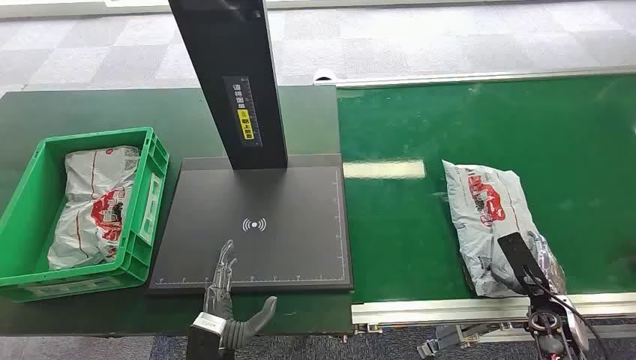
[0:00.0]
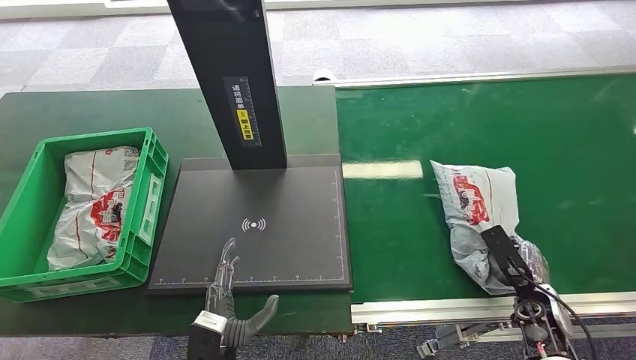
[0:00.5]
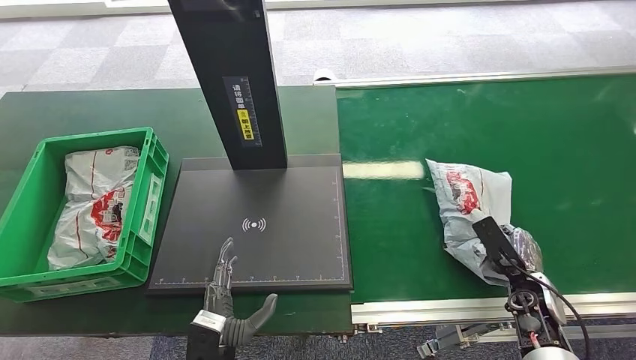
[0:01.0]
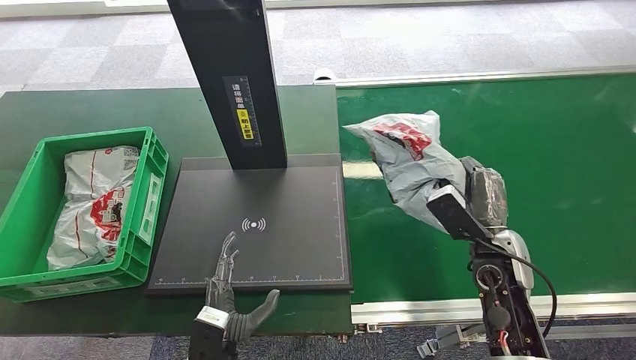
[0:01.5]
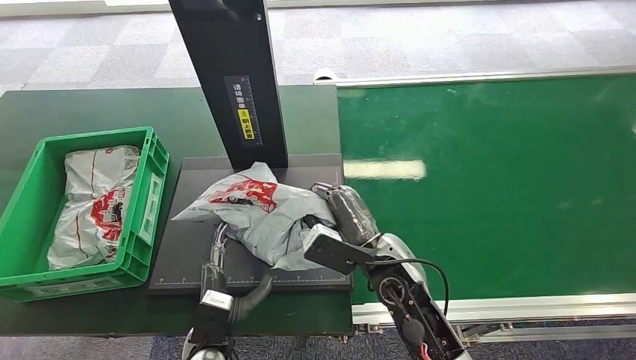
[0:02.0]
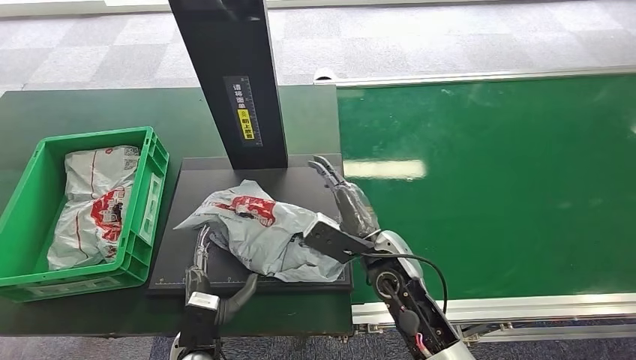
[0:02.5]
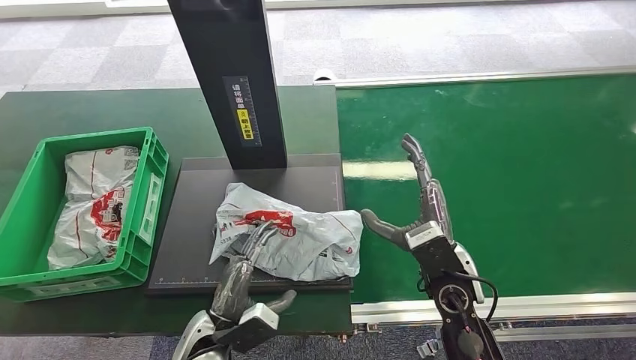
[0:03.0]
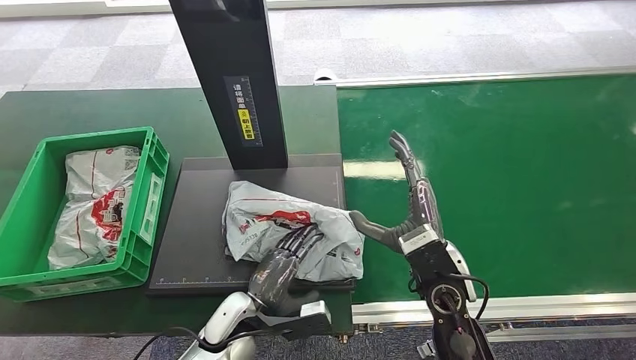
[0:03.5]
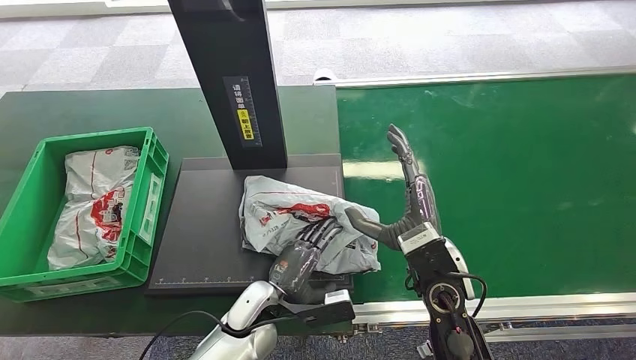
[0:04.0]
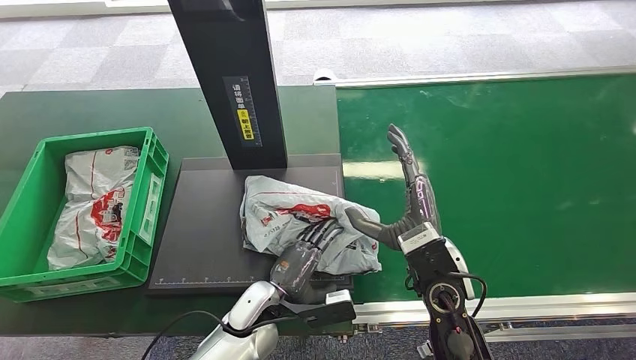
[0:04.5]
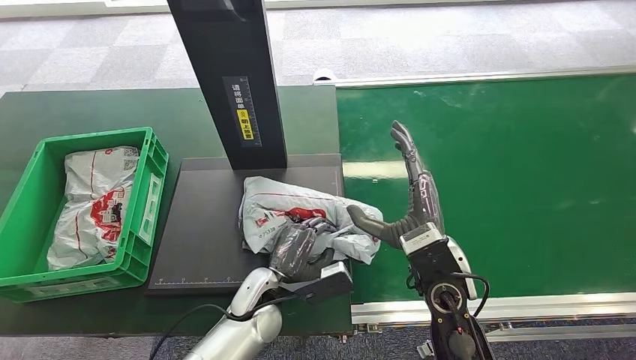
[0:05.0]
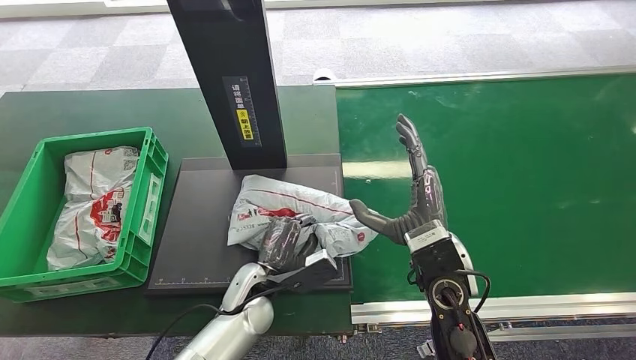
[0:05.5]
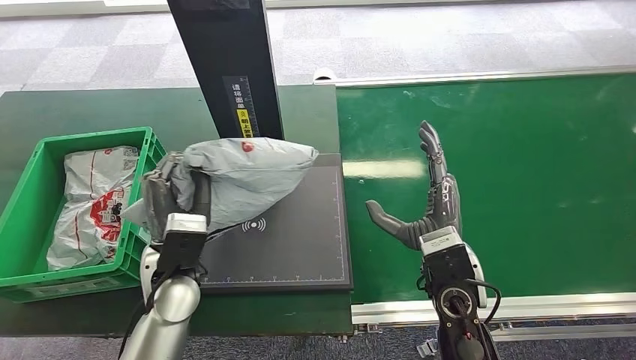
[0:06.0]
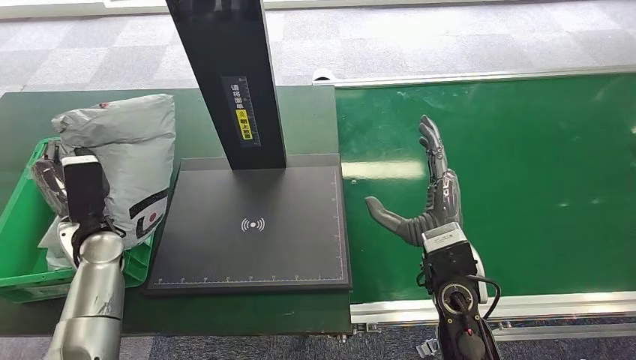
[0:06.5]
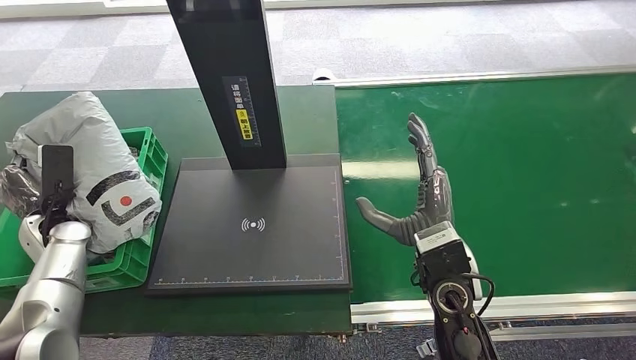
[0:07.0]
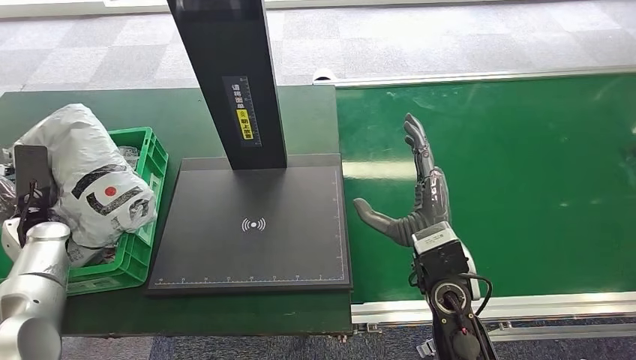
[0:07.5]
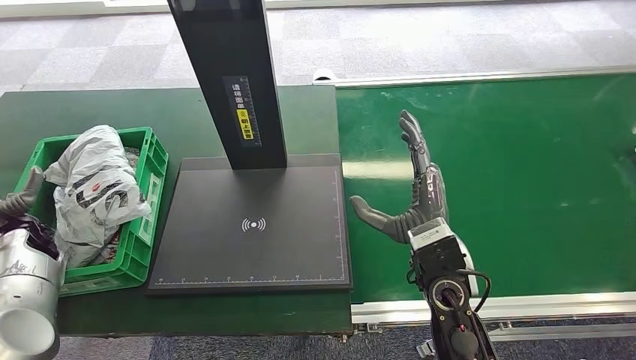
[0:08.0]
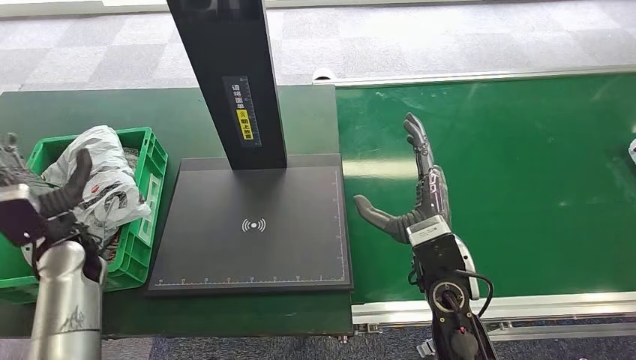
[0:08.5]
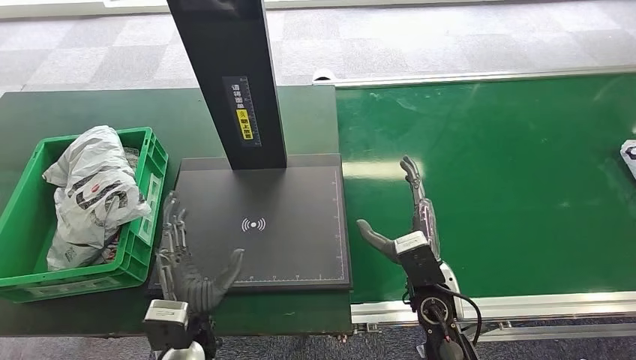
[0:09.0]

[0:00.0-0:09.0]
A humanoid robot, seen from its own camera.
Step, 0:00.0 to 0:01.5: Pick up the package from the conveyor belt.
Step, 0:02.0 to 0:03.0: Place the package onto the inbound machine.
Step, 0:04.0 to 0:06.5: Pick up the package from the inbound machine.
Step, 0:07.0 to 0:09.0: Place the package into the parcel locker.
0:02.0 to 0:04.5: The left hand moves forward and to the right, approximately 10 cm; the right hand moves to the right, approximately 5 cm.
0:07.0 to 0:09.0: The left hand is displaced to the right and backward by approximately 35 cm. The right hand shifts about 10 cm downward.

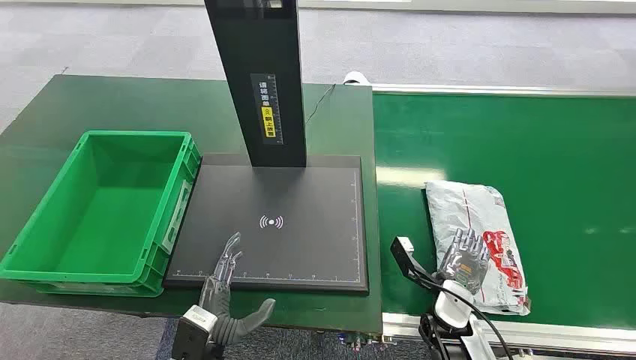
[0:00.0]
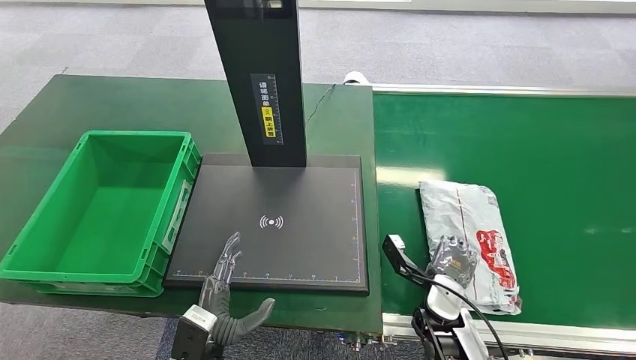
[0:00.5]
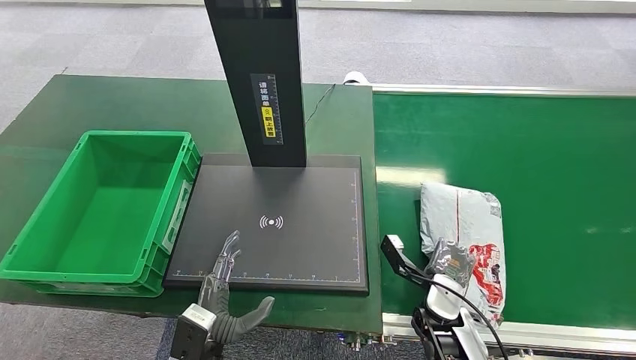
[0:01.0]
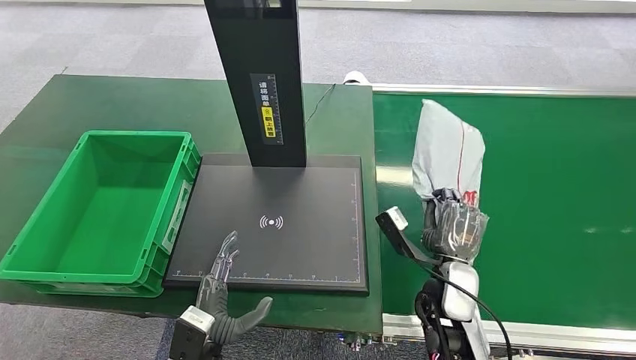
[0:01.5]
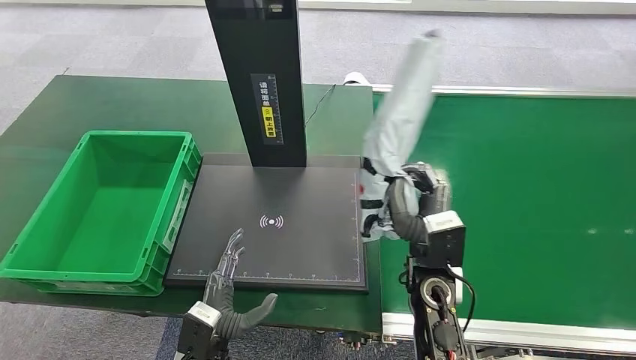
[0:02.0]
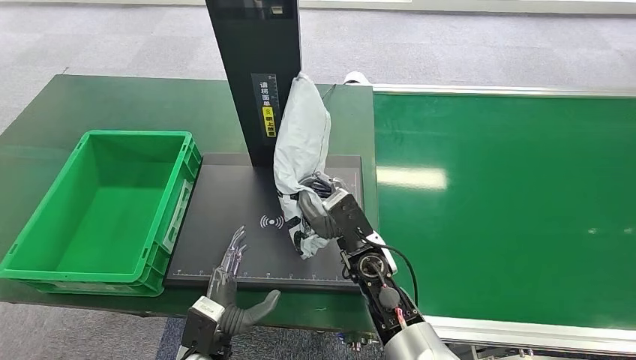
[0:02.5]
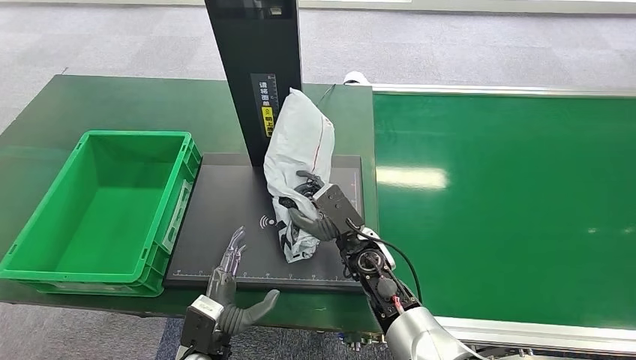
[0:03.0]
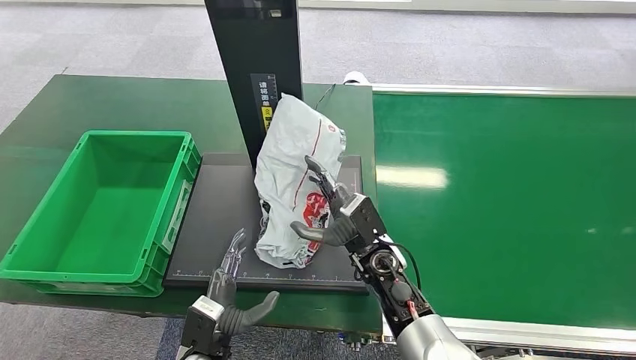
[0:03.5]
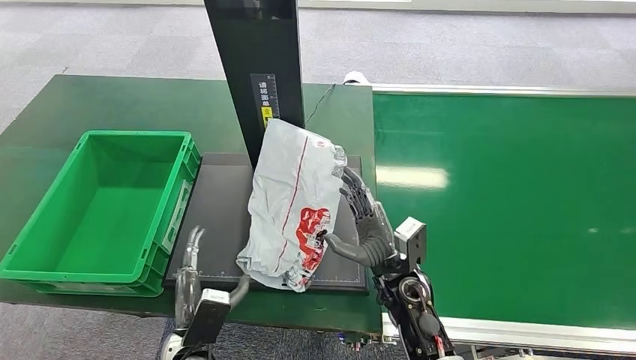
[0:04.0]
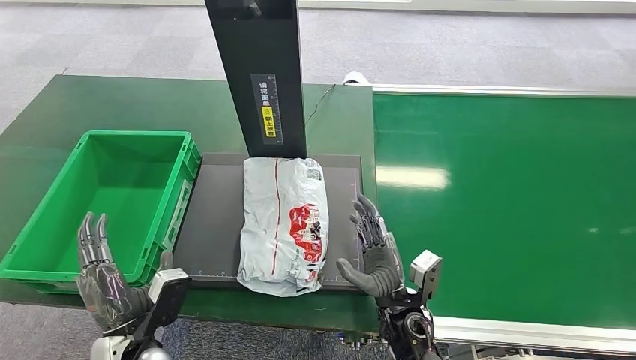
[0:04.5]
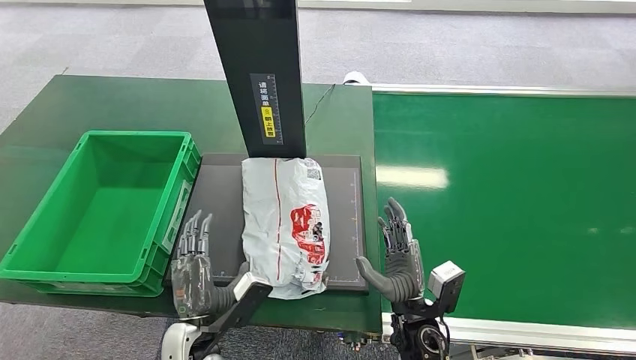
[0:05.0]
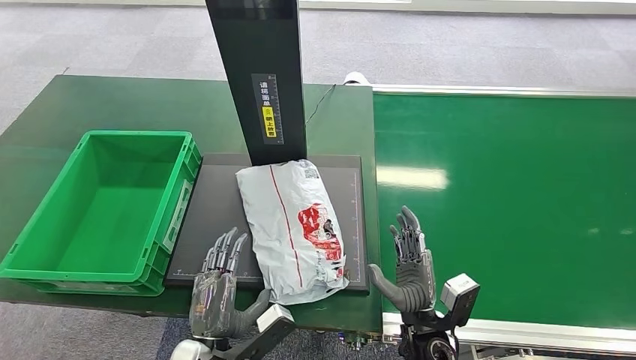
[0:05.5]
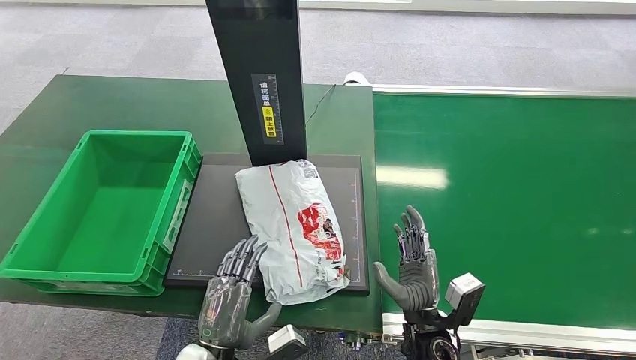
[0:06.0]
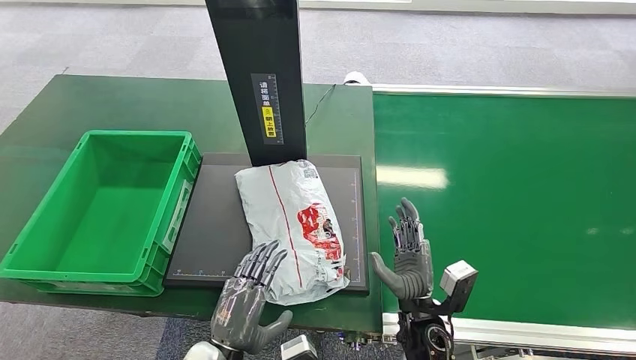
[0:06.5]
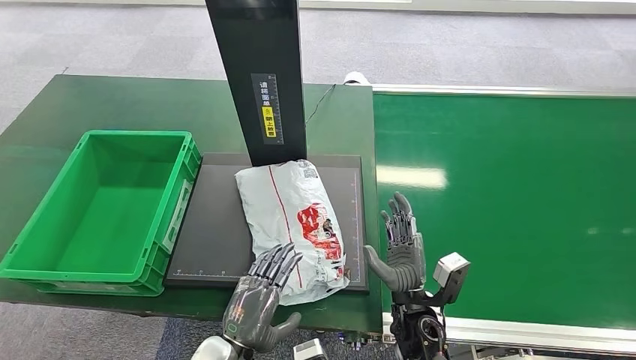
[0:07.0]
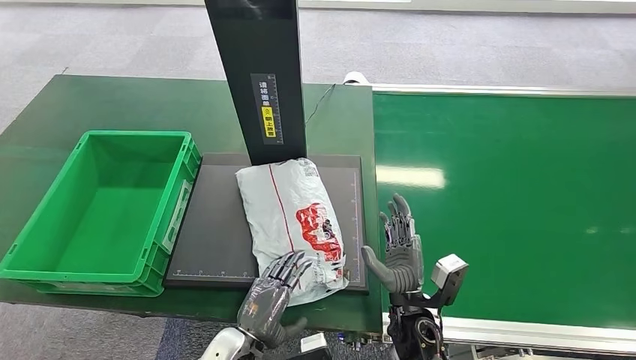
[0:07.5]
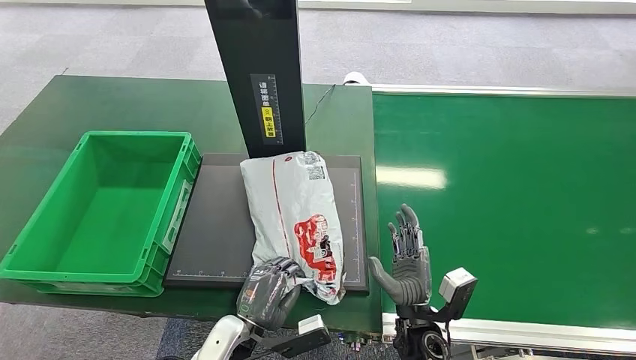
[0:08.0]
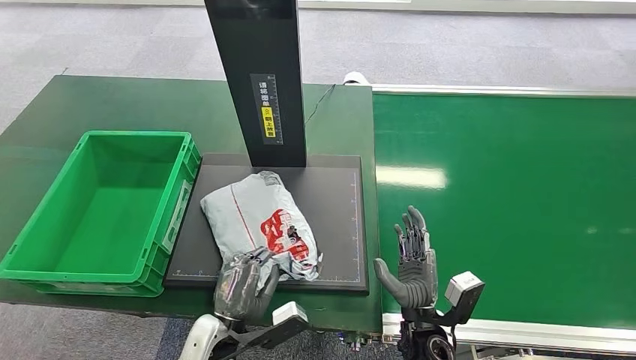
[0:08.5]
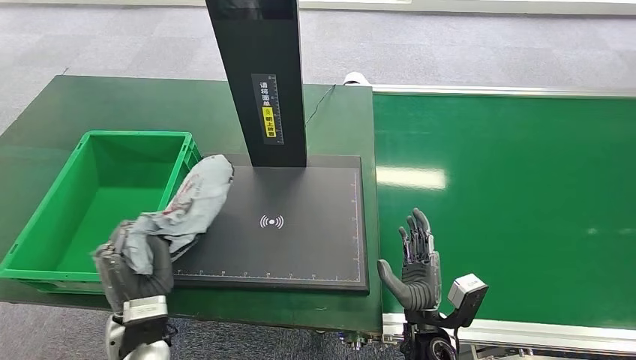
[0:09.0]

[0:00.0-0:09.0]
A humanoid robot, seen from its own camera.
Step, 0:00.0 to 0:01.5: Pick up the package from the conveyor belt.
Step, 0:02.0 to 0:04.0: Place the package onto the inbound machine.
0:02.0 to 0:04.5: The left hand shifts approximately 10 cm to the left and upward; the right hand travels downward and backward by roughly 10 cm.
0:04.5 to 0:07.0: The left hand moves to the right, roughly 10 cm.
0:07.0 to 0:09.0: The left hand is displaced to the left by some 10 cm.

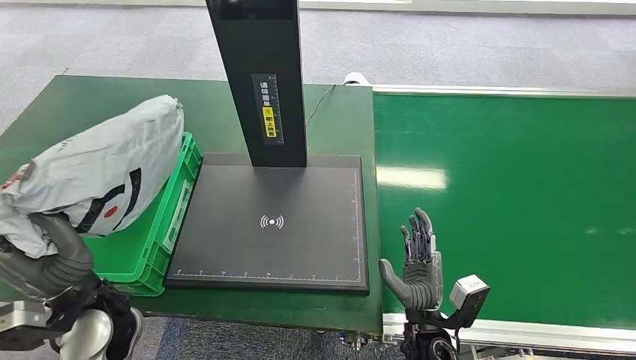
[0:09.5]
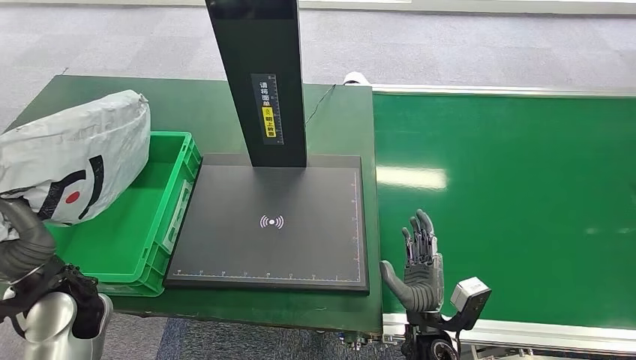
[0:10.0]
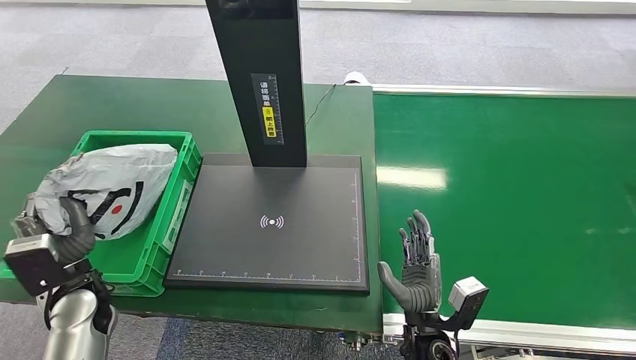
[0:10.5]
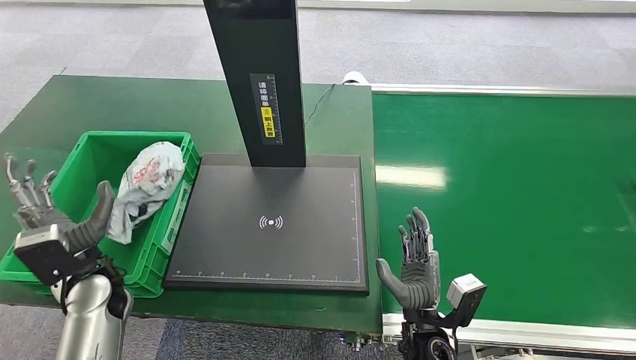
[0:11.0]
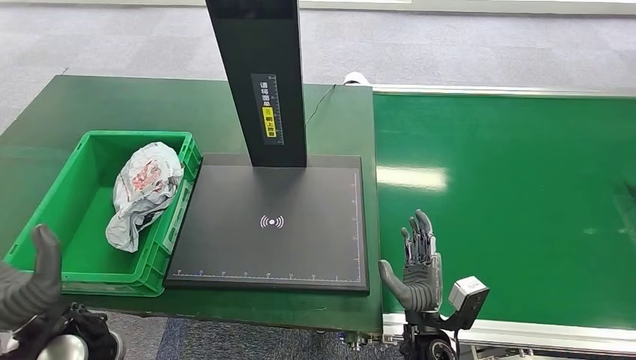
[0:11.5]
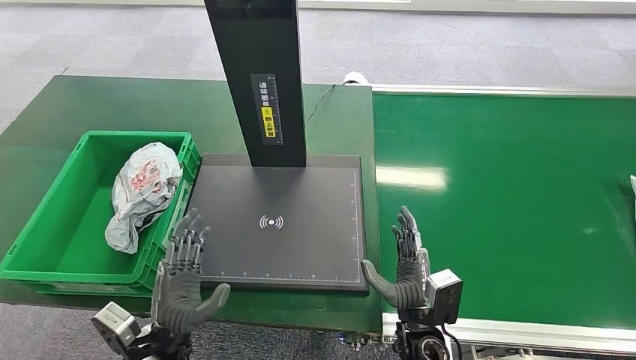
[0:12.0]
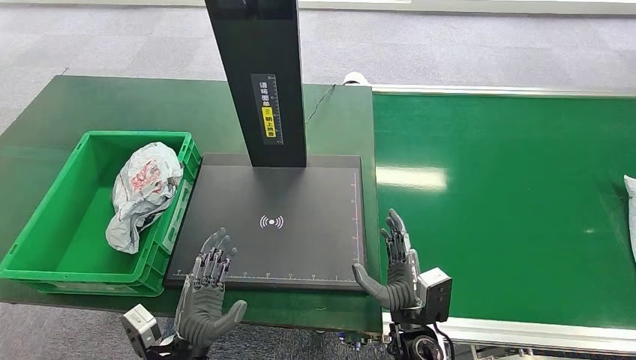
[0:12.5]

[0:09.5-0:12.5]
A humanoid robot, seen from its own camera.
Step, 0:10.0 to 0:12.5: Place the package into the parcel locker.
0:09.5 to 0:11.0: The left hand goes some 10 cm to the left and forward.
0:11.0 to 0:12.5: The left hand shifts about 20 cm to the right, backward and downward.
